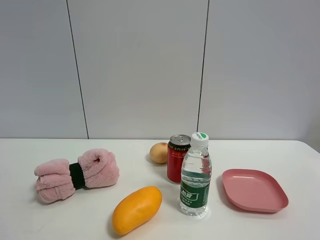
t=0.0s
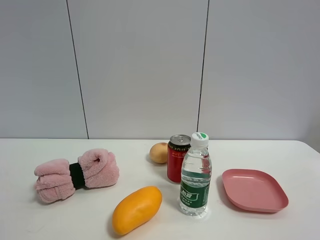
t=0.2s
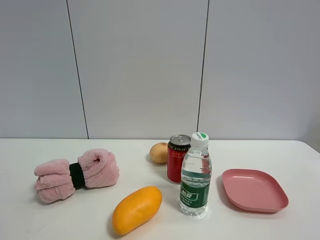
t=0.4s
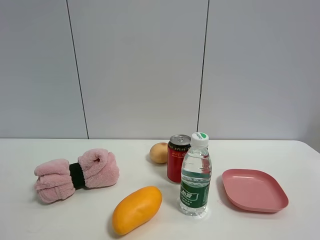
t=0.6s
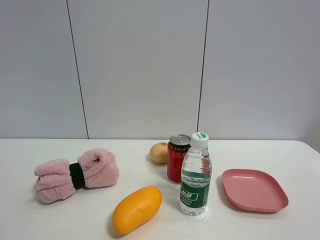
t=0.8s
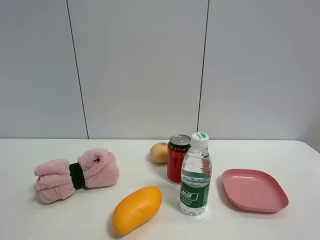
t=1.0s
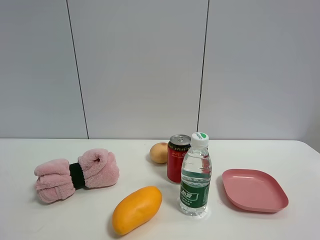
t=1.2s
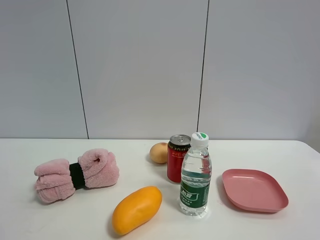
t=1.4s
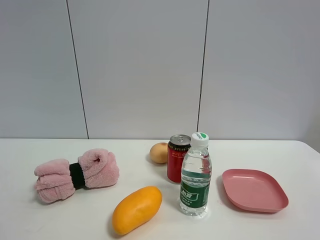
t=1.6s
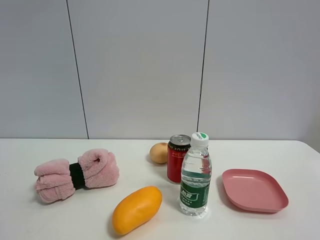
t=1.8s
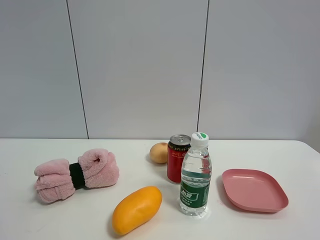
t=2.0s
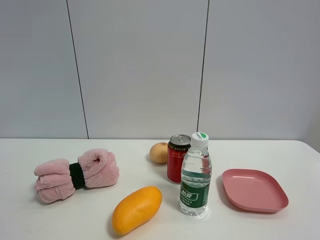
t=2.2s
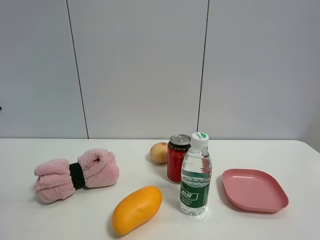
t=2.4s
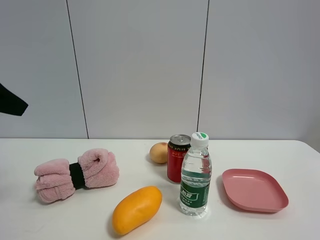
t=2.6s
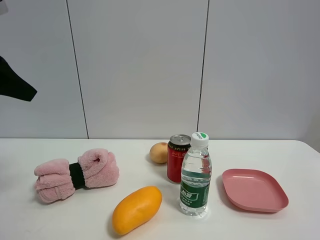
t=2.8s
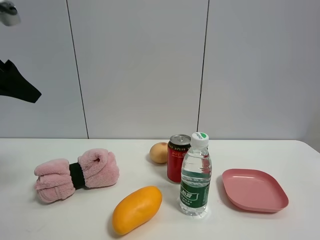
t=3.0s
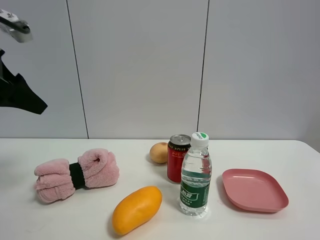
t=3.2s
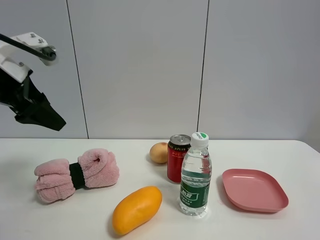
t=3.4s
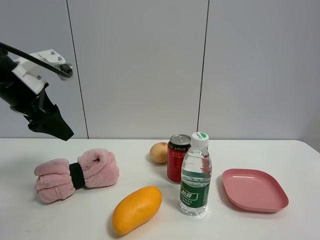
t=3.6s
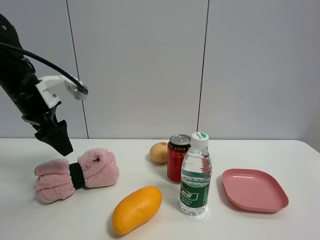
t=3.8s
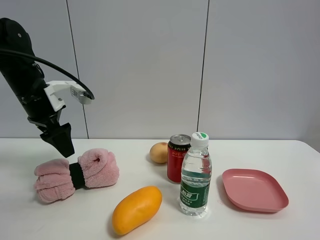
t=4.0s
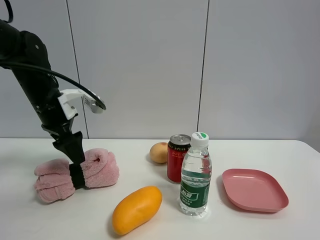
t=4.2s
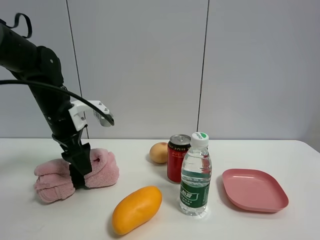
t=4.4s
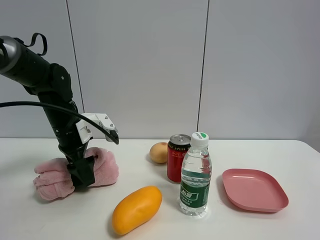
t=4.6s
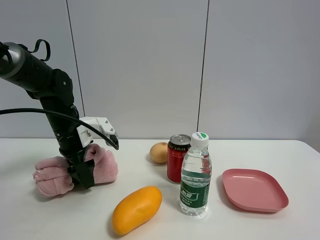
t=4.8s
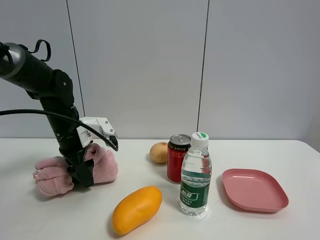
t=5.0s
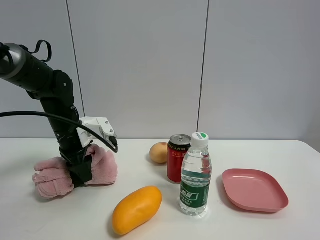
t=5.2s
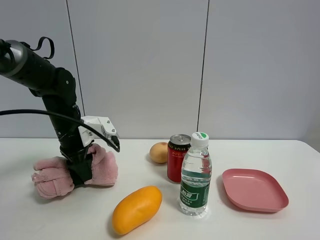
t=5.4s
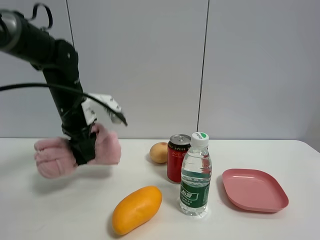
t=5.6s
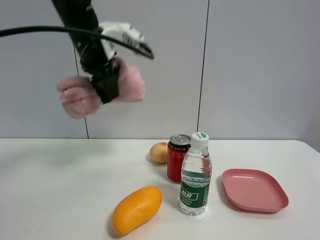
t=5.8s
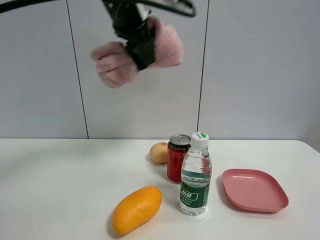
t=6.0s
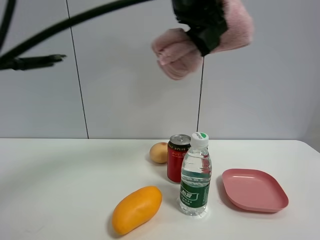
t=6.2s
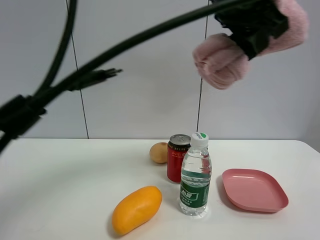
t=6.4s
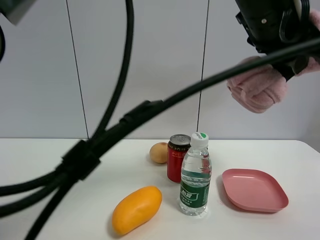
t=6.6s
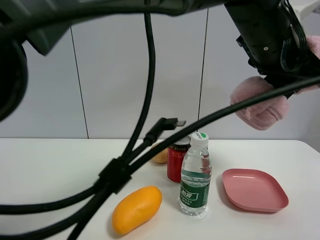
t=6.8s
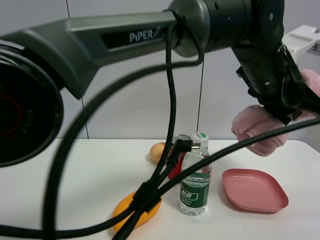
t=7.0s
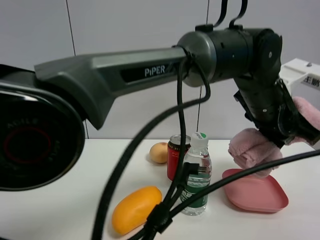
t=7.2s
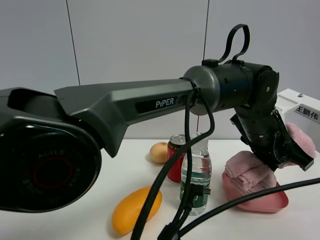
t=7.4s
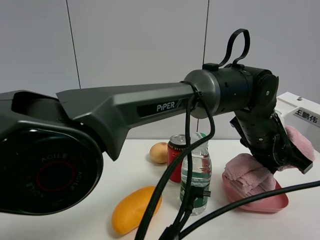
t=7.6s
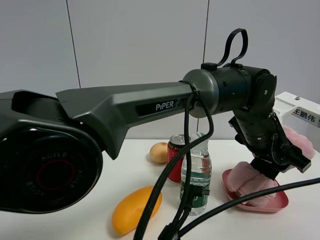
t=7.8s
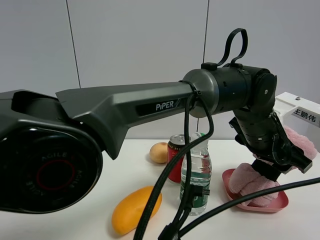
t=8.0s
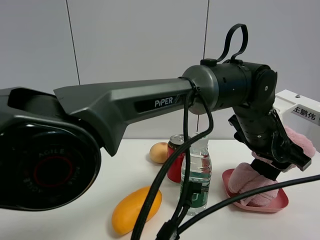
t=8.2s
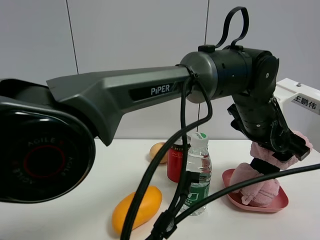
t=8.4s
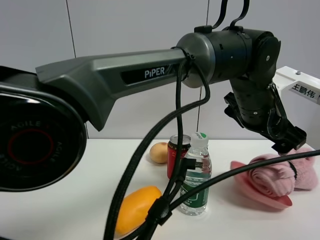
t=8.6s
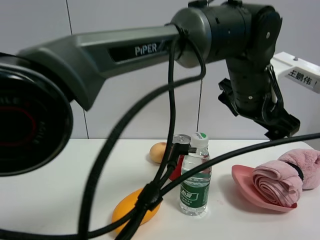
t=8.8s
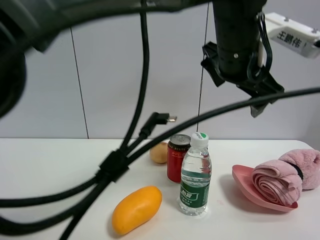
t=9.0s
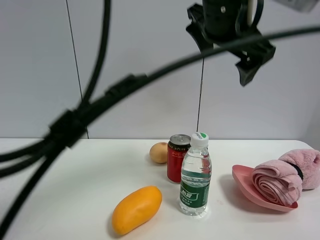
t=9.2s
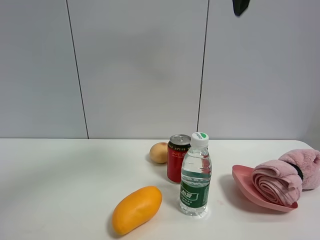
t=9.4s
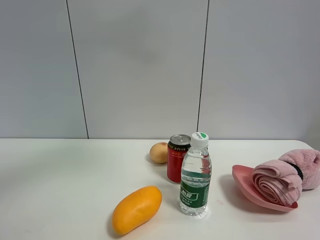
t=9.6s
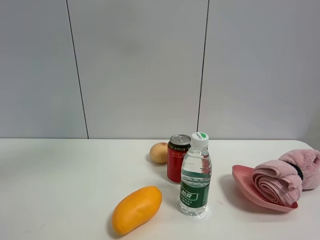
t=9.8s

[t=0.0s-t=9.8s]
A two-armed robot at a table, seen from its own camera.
Task of the whole recording: the gripper move the object.
Step, t=0.0s to t=5.2s: Grasp the pink towel with the left gripper.
Step, t=5.4s to t=8.4s: Place the pink towel into the pink plate with the left gripper.
t=1.4s to t=2.8s: The left gripper heads forward, covering approximately 25 cm.
t=2.8s to t=4.2s: The left gripper goes roughly 20 cm downward, forward and to the right.
t=4.2s to t=5.6s: The left gripper closes up.
t=5.6s to t=7.0s: The left gripper moves to the right, roughly 35 cm.
t=7.0s to t=8.4s: The left gripper moves downward, roughly 5 cm, and opens up.
t=8.4s to t=9.8s: The left gripper moves upward and to the left, about 40 cm.

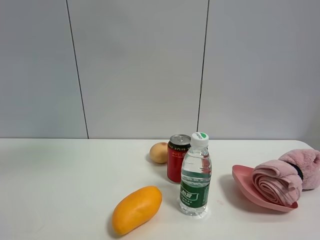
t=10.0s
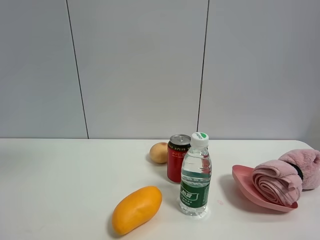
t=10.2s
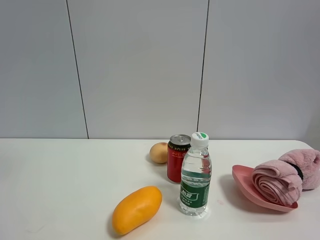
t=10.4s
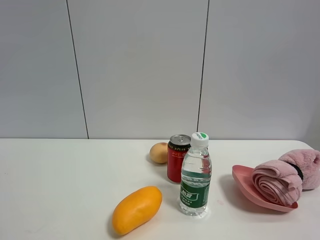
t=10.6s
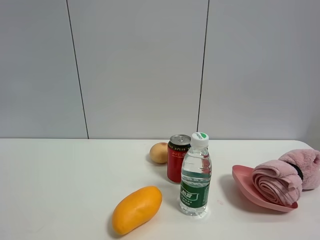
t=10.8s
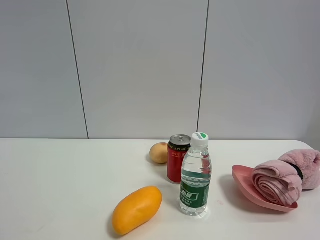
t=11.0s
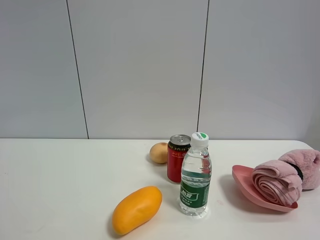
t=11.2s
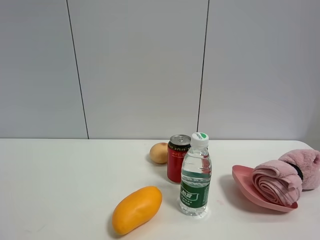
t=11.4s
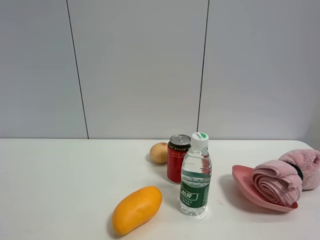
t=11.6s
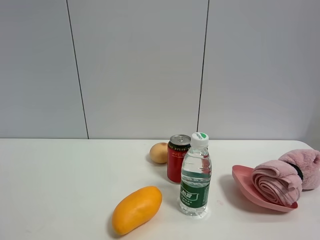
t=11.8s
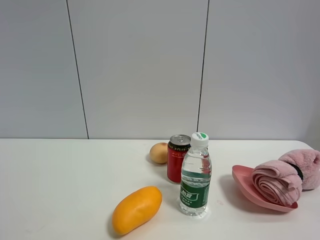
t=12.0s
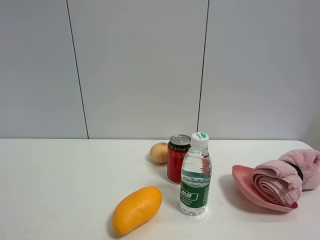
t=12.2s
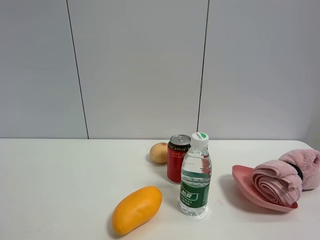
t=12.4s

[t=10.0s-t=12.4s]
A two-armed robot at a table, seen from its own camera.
Task of the whole recording: the gripper move the object.
t=10.0s to t=11.2s: The left gripper shifts some 40 cm backward, to the left and downward.

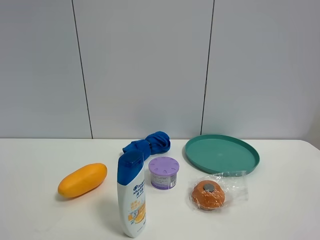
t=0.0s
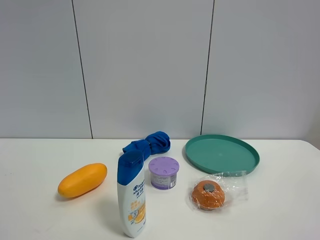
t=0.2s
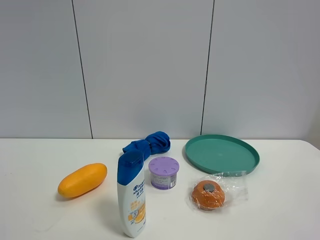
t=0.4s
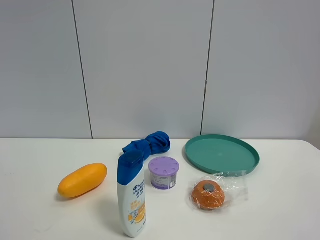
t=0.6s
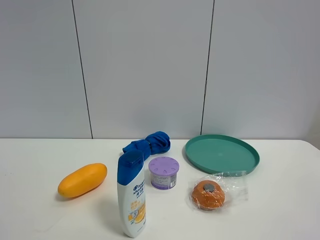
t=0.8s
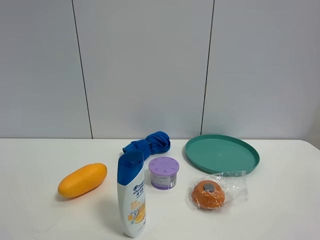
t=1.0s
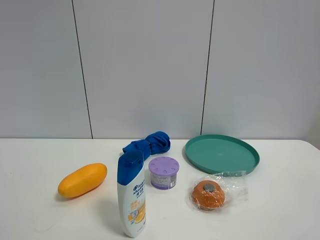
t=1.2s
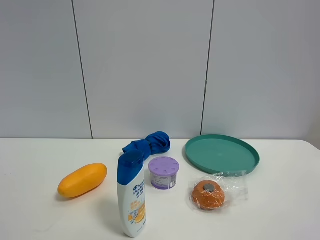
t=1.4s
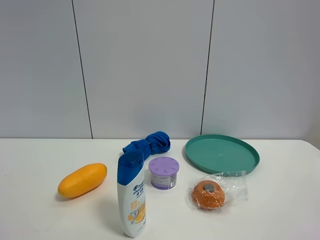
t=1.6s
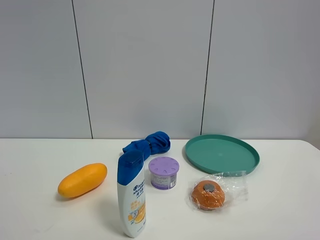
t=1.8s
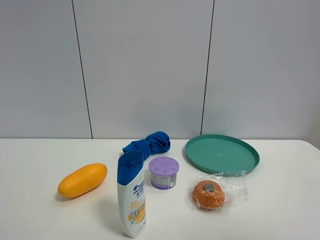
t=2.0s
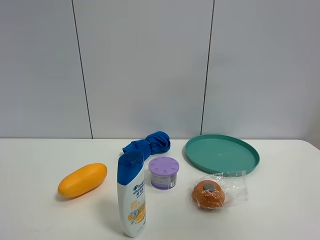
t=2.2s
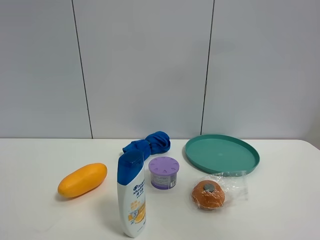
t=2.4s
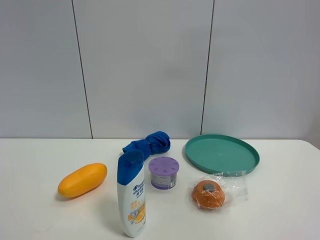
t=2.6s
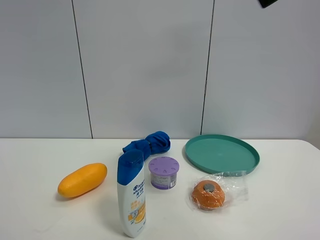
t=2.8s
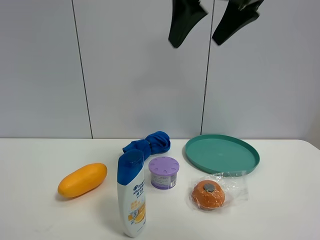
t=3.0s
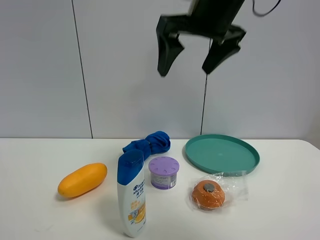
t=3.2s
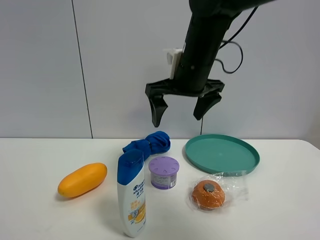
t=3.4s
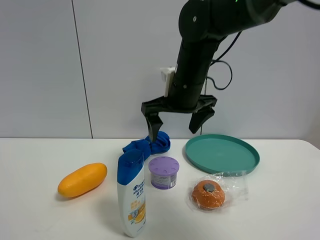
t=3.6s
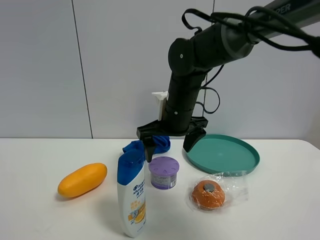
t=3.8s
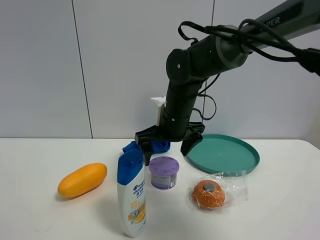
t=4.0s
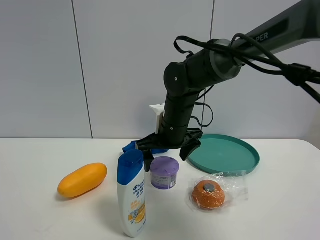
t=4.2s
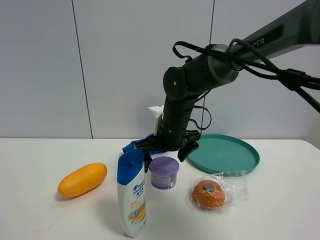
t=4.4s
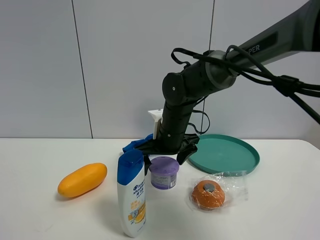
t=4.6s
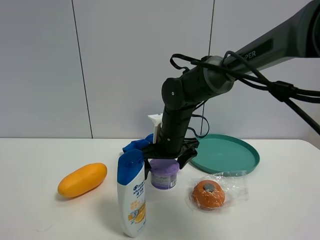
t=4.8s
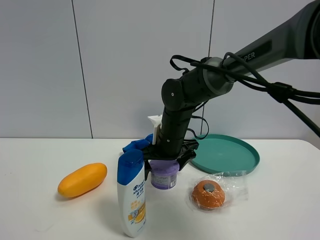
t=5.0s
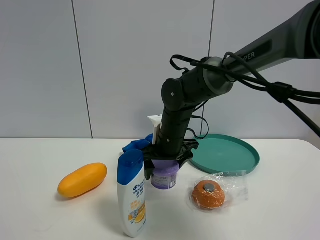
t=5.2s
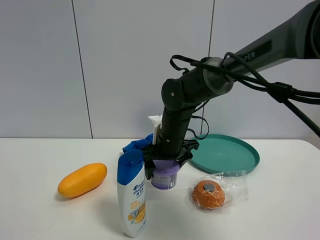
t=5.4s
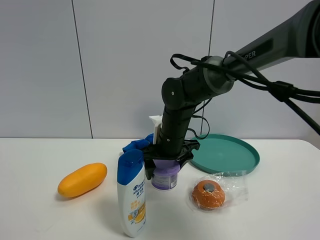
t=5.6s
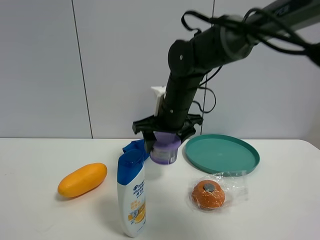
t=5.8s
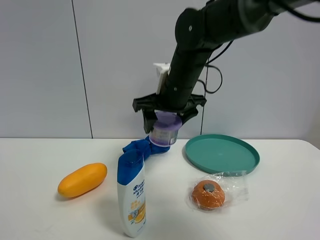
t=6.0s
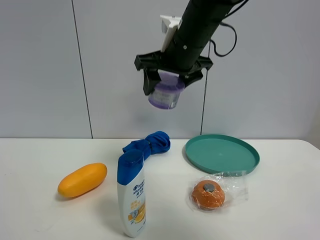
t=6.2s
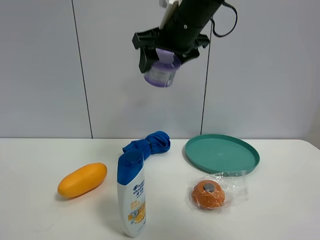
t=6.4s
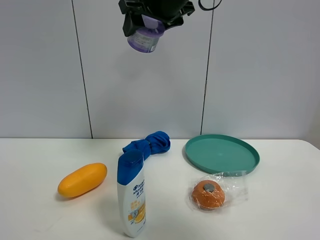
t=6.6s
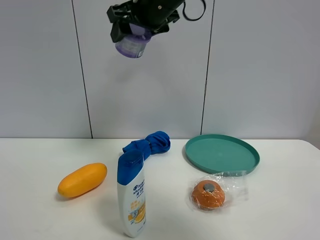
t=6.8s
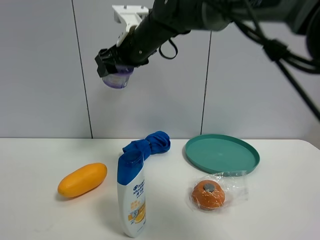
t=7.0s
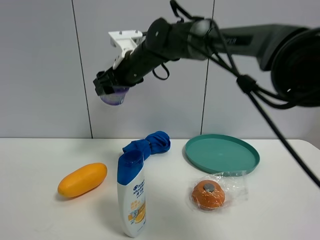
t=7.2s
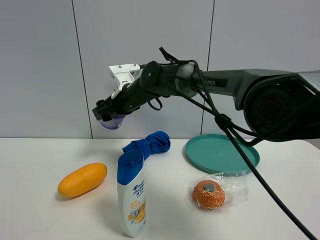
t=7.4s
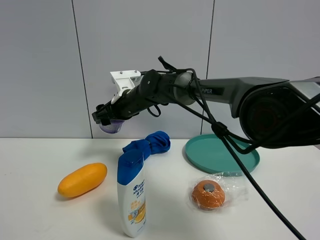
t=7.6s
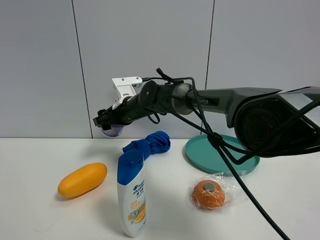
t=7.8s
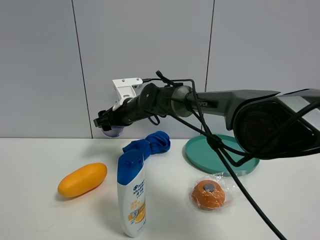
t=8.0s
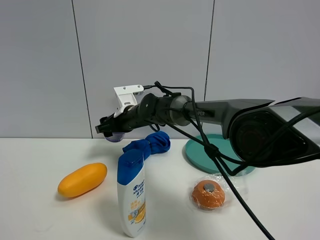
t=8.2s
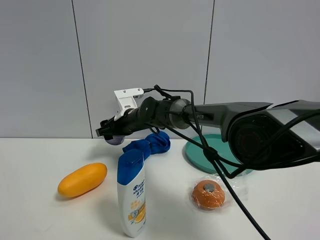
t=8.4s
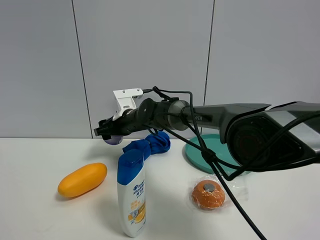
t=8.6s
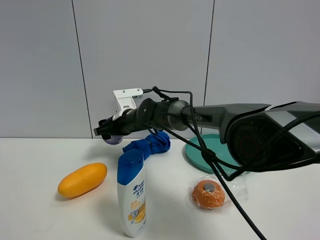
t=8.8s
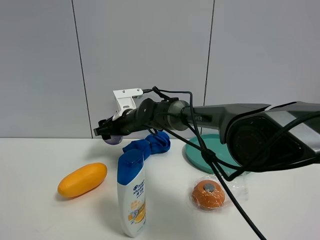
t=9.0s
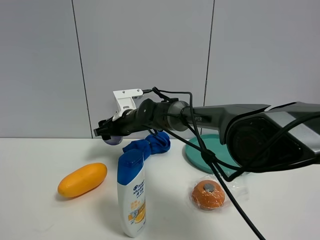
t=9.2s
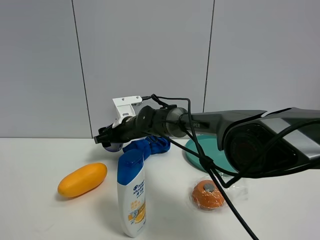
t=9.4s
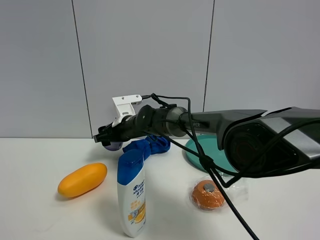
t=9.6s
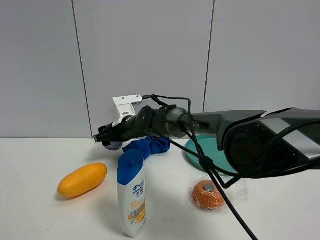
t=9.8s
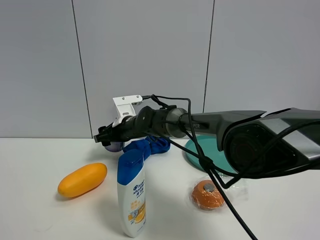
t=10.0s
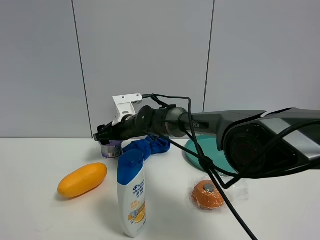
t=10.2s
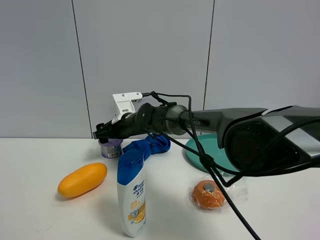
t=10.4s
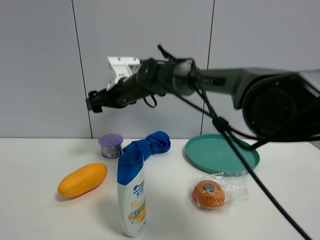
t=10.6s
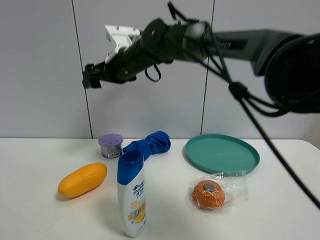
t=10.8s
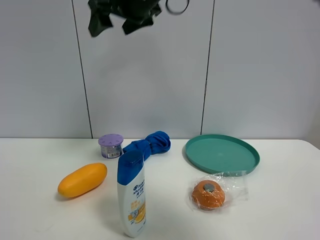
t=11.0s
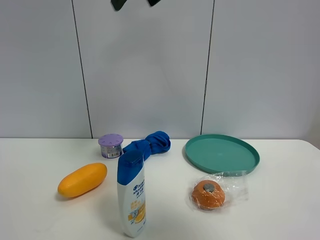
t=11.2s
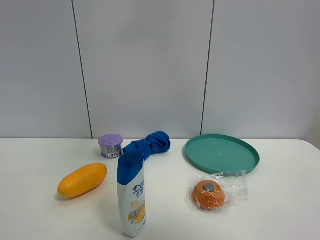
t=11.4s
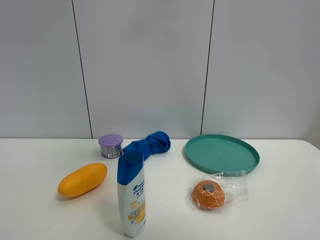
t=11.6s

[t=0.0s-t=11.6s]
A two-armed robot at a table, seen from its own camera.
Task of the whole recording: the gripper move the object.
Step, t=0.0s to t=5.2s: Grasp the Incense box with the right gripper.
Step, t=5.4s to t=10.4s: Place the Incense box on the table with the right gripper.
t=1.4s to t=2.8s: The right gripper travels forward, upward and to the left by approximately 30 cm, and opens its fingers.
t=2.8s to t=4.4s: The right gripper shifts about 35 cm downward, forward and to the left.
t=4.4s to t=5.8s: The right gripper goes roughly 5 cm upward, and closes.
t=5.8s to t=7.2s: The right gripper heads to the left and forward, covering roughly 10 cm, and goes upward and returns, approximately 20 cm each way.
t=7.2s to t=8.8s: The right gripper goes roughly 10 cm downward.
t=8.8s to t=10.2s: The grippers stay close to where they were, moving slightly.
t=10.2s to t=11.6s: The right gripper travels upward and backward by approximately 50 cm.
